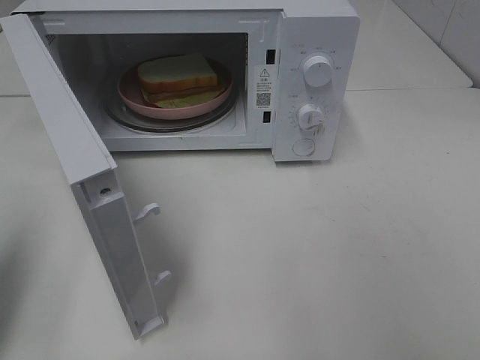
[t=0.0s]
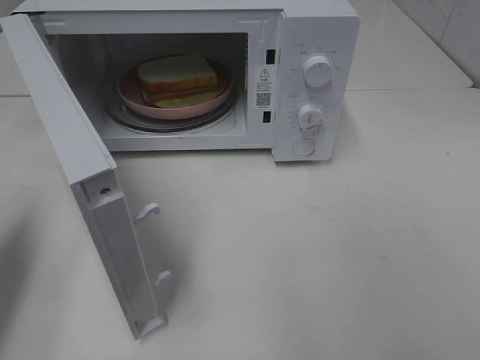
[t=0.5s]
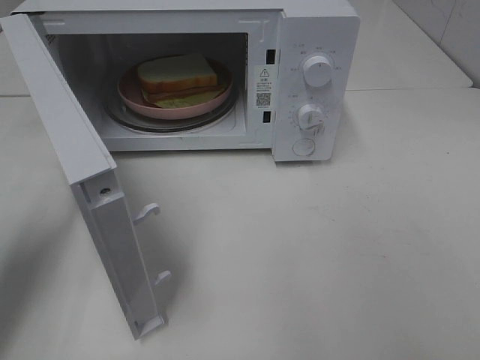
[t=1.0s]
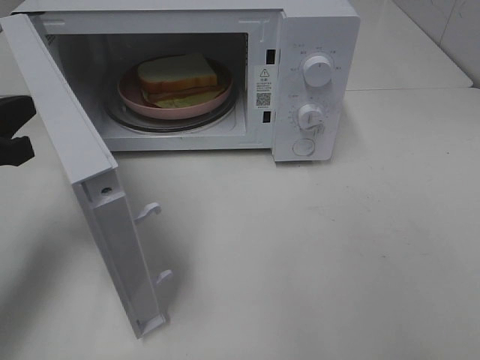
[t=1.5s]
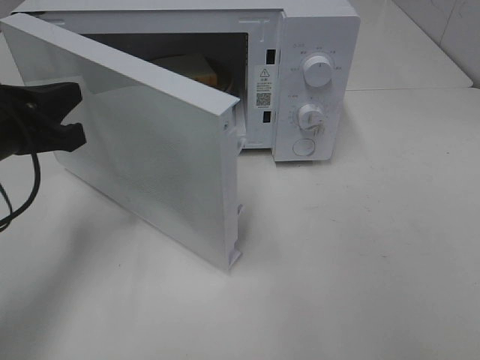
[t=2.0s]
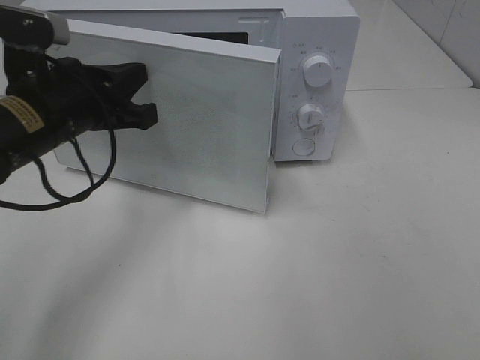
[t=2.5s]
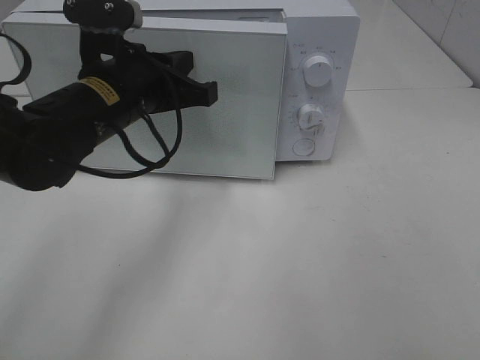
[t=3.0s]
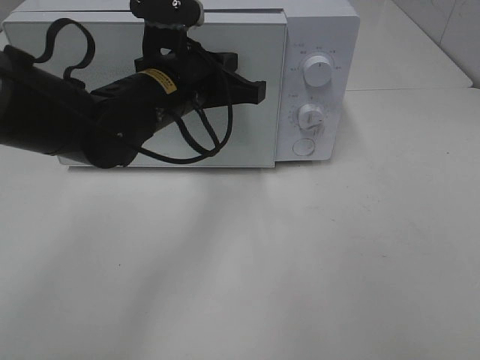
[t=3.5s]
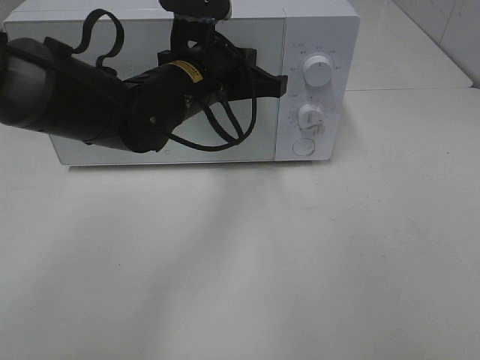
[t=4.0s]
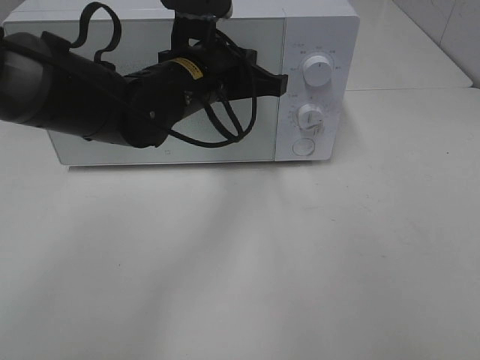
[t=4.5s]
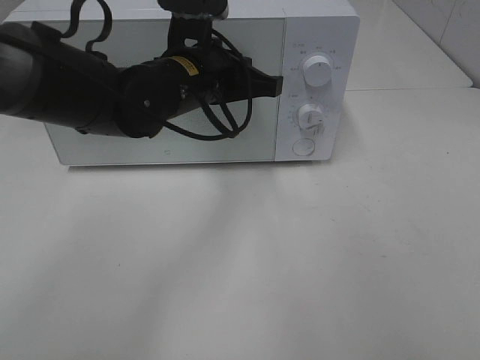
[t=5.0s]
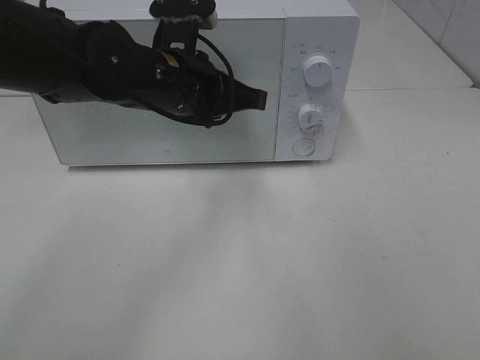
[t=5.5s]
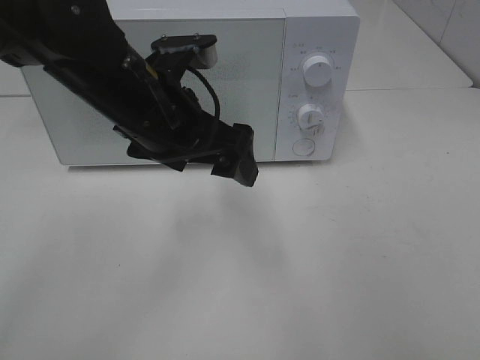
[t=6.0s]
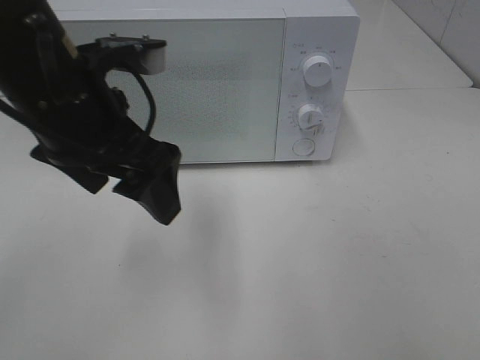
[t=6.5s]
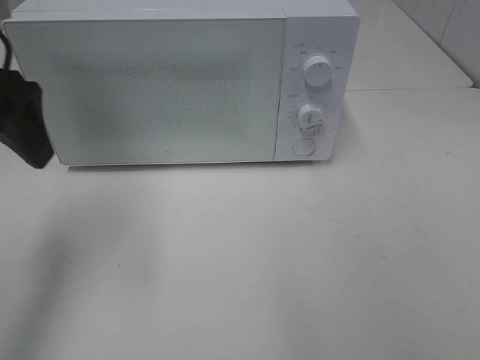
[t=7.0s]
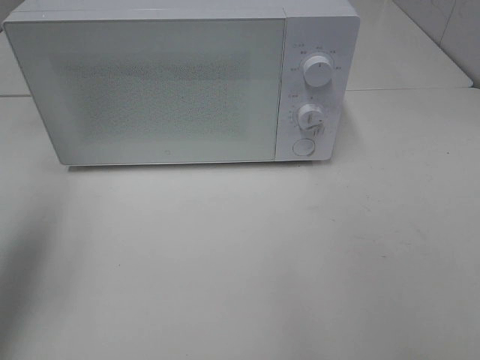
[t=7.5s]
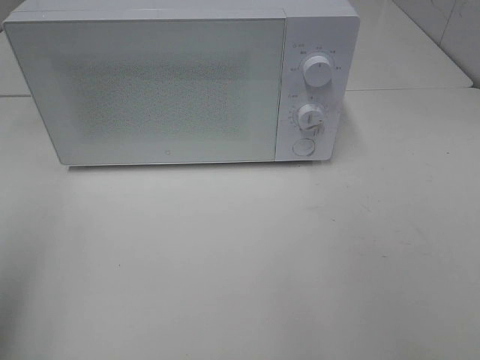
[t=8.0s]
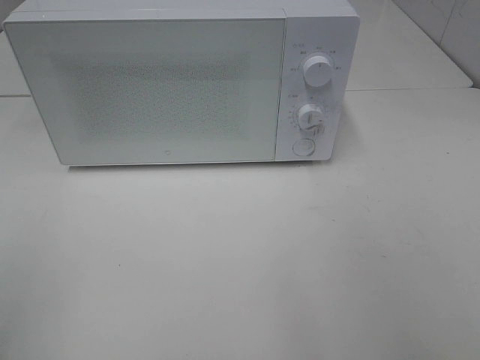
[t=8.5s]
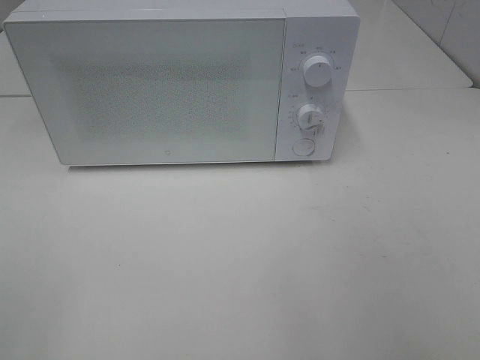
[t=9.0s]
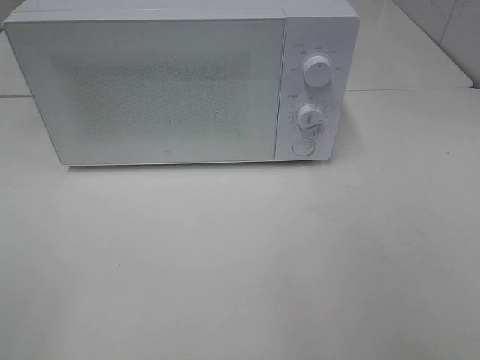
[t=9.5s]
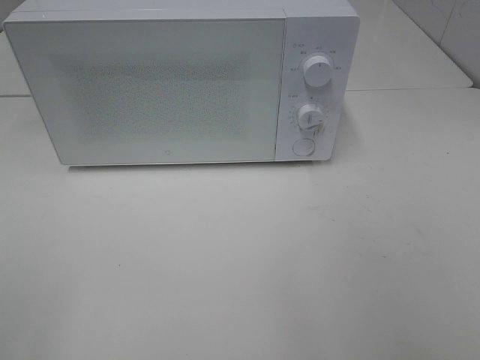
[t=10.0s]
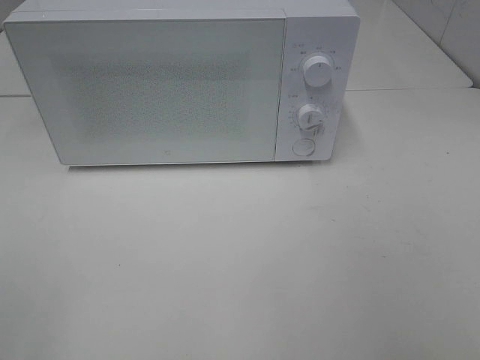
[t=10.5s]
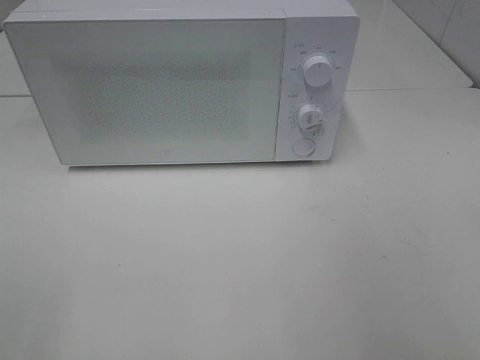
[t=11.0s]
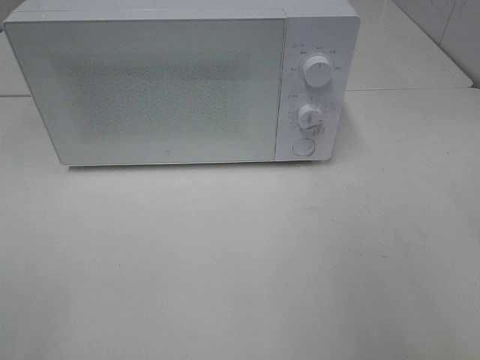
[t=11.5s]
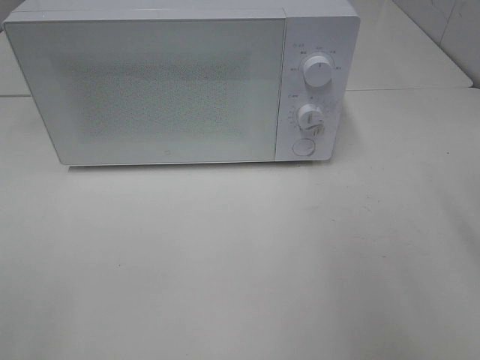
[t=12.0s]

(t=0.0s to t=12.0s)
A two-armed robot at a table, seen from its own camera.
Task of the whole recording: Heat Sandwich.
Step, t=0.0s - t=4.5s: Left hand: close the microwave door.
t=0.0s - t=2.0s: The left gripper goes some 15 cm forward, to the right and downward.
t=2.0s - t=4.0s: The left gripper is displaced to the right and forward by about 20 cm.
t=4.0s - t=6.0s: The left gripper shifts some 5 cm backward, and opens up.
t=6.0s - t=8.0s: The left gripper is displaced to the left and backward by some 30 cm.
t=8.0s - t=10.0s: The left gripper goes approximately 10 cm backward.

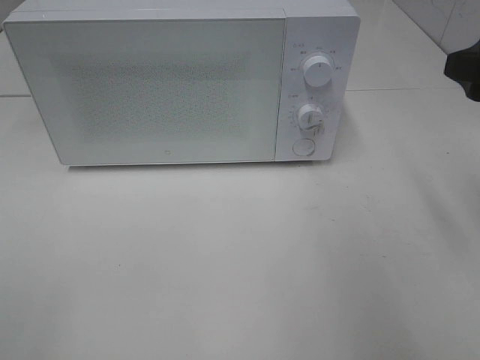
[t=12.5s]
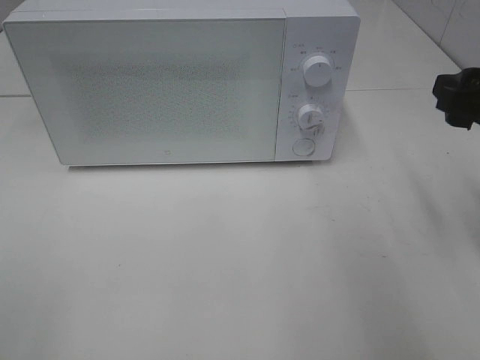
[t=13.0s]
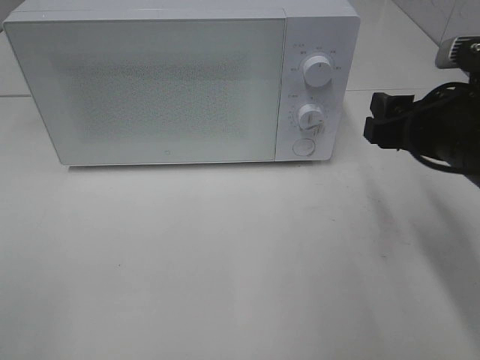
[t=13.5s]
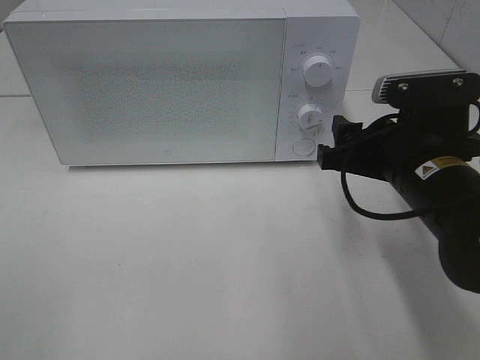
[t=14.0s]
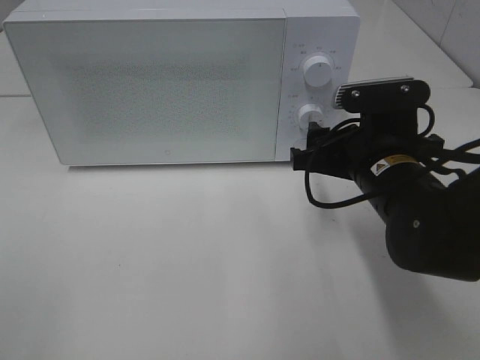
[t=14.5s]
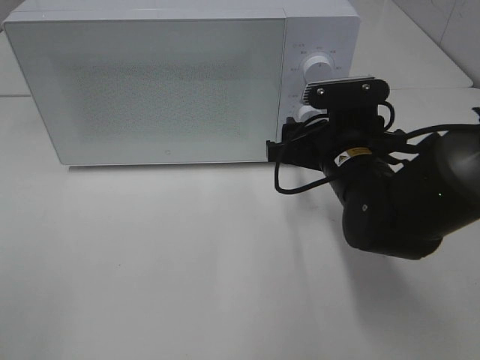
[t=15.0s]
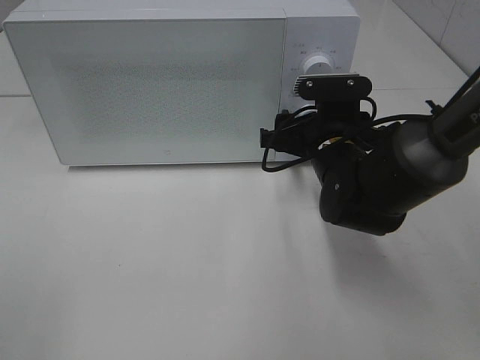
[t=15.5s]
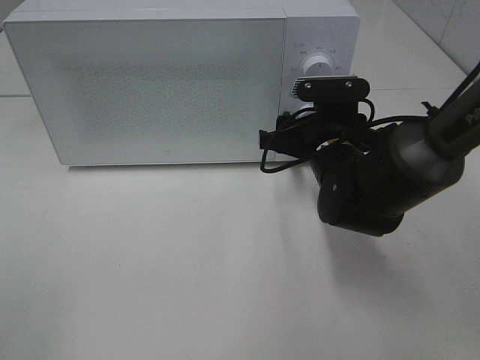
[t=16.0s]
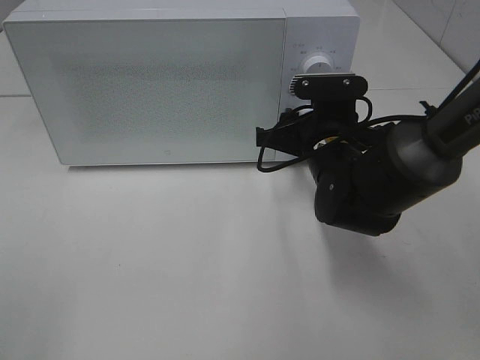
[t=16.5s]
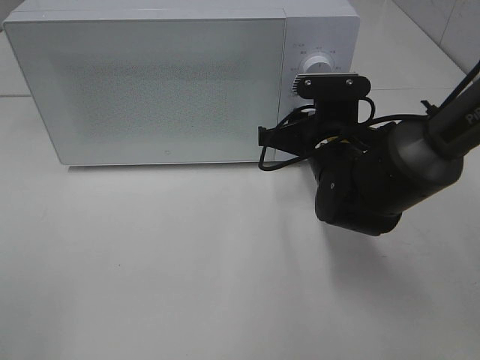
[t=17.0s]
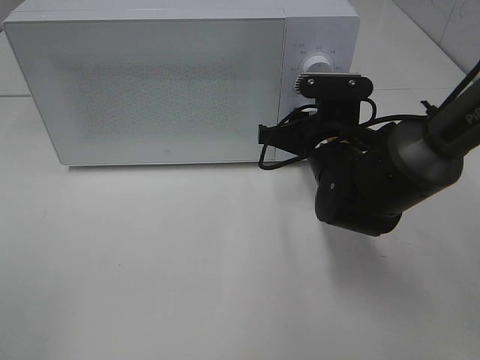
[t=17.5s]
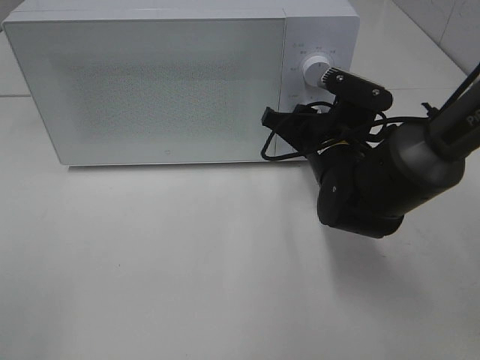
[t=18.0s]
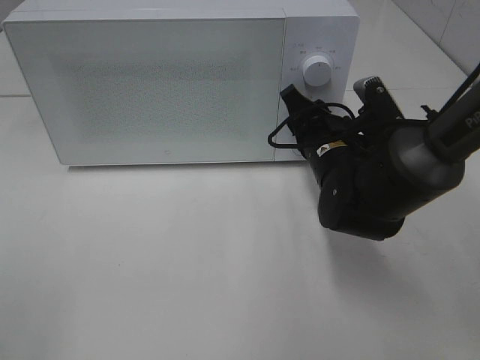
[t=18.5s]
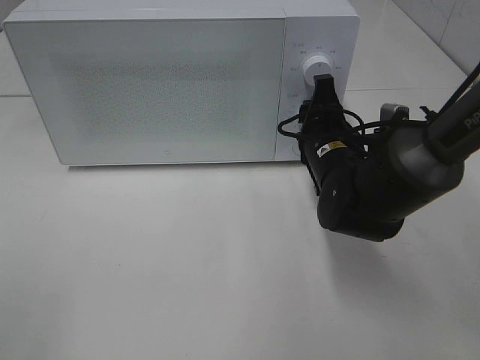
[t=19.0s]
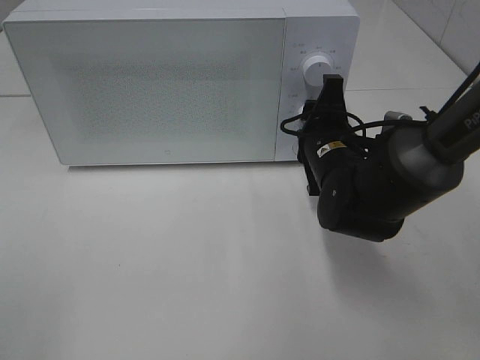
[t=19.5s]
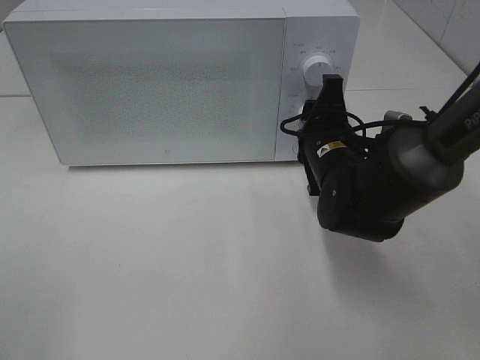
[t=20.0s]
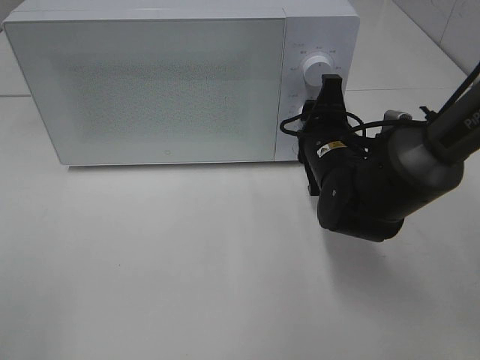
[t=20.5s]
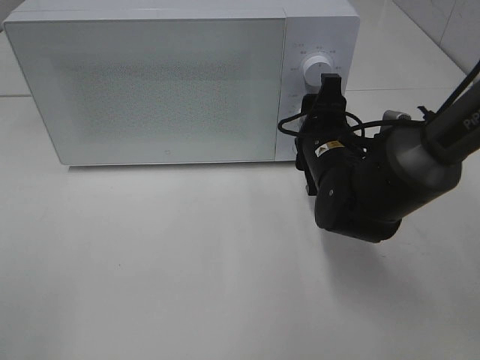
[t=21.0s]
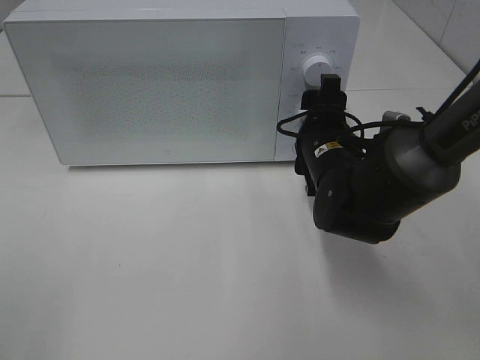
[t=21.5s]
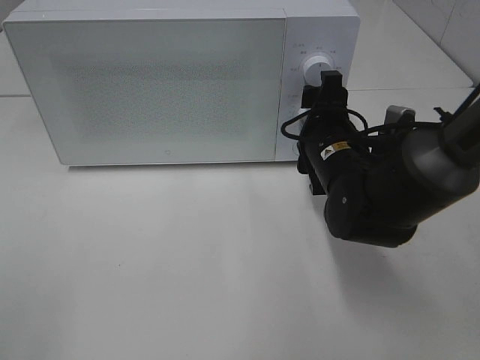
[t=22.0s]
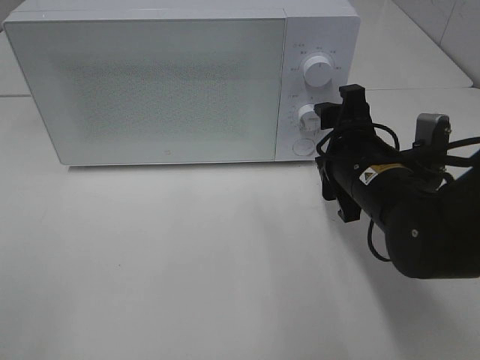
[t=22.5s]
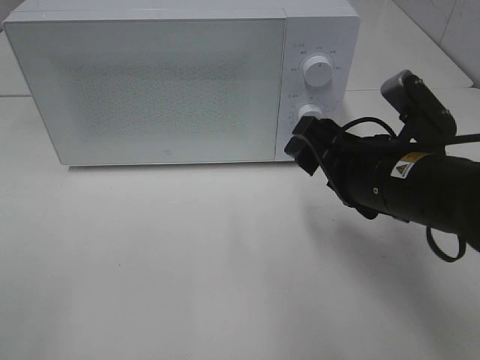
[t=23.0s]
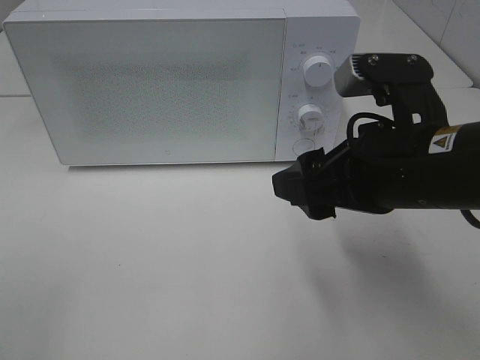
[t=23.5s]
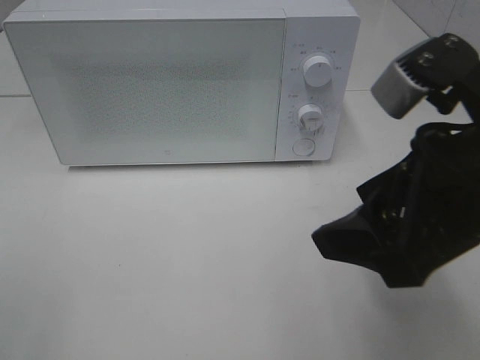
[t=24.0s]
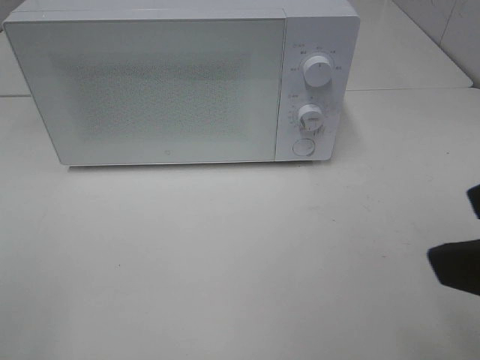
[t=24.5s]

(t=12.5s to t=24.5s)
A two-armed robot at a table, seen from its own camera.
Task of the whole recording: Heat Sandwich.
Step, t=12.5s - t=21.5s: Right hand: twist timer button.
t=12.5s - t=14.5s: The right gripper moves downward and to the left, roughly 20 cm.
t=14.5s - t=16.5s: The right gripper heads forward, covering some 5 cm.
t=20.5s - t=22.5s: The right gripper is displaced backward by approximately 5 cm.
t=22.5s - t=24.5s: The right gripper goes approximately 25 cm backward and upward.

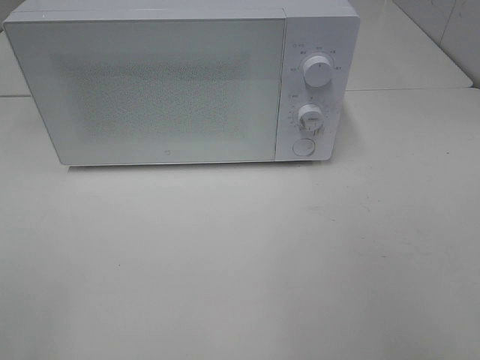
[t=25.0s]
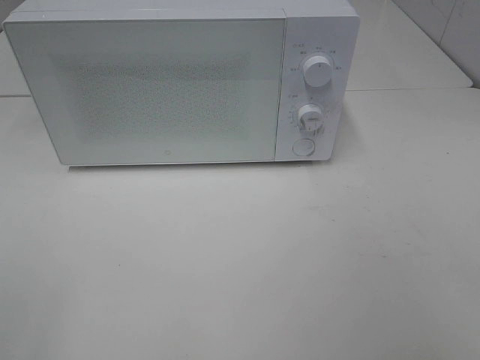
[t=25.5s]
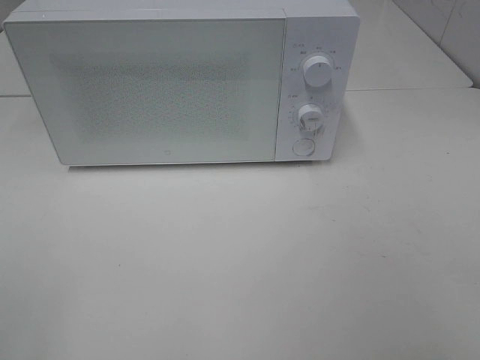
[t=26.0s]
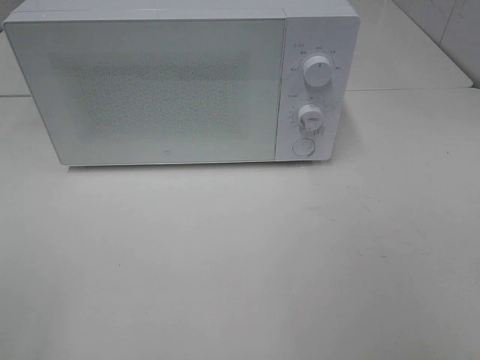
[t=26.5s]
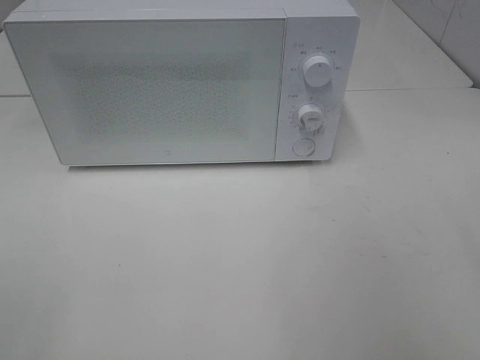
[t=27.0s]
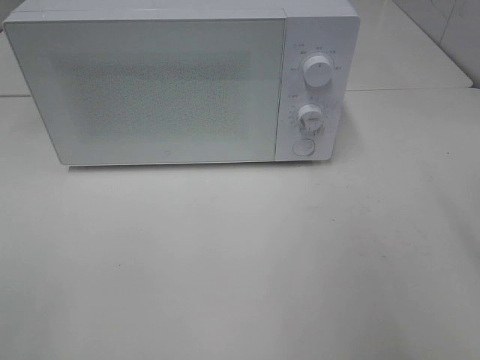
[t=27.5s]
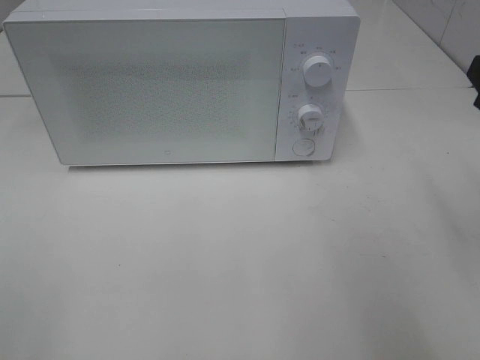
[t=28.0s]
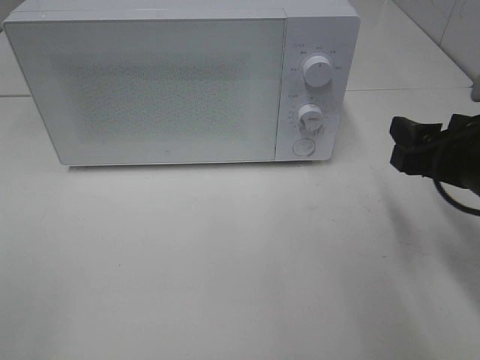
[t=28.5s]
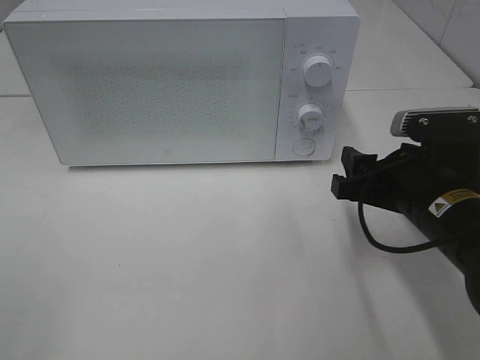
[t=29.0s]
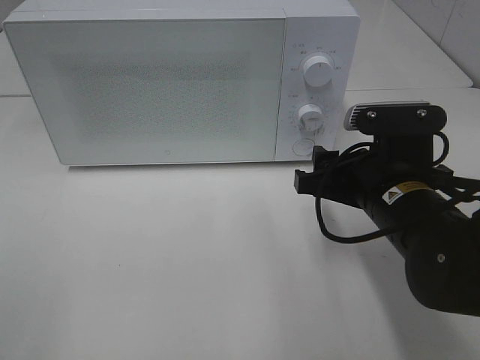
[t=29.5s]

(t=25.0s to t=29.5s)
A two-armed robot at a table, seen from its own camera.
Task of the whole recording: Heat Sandwich.
t=27.0s - t=29.5s: The right gripper moves downward, forward and to the left, some 25 cm.
